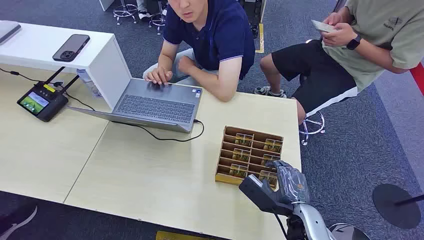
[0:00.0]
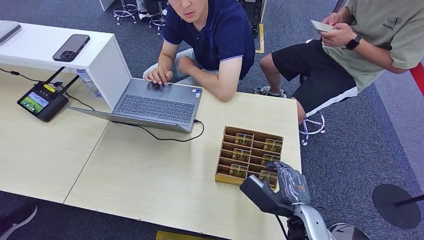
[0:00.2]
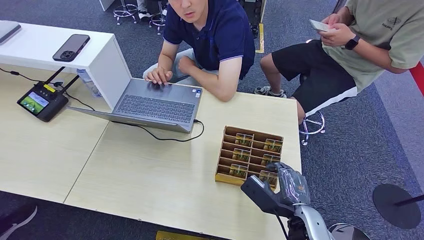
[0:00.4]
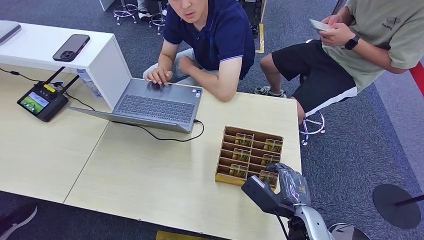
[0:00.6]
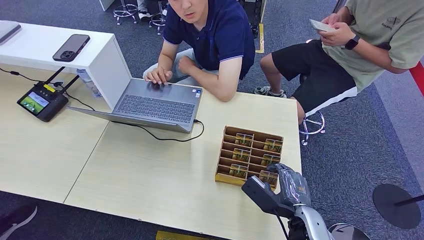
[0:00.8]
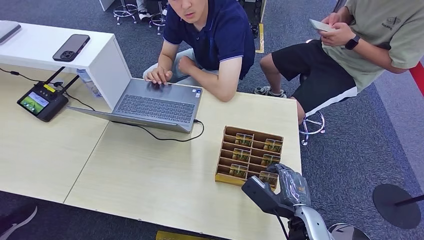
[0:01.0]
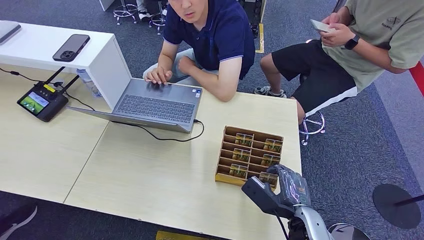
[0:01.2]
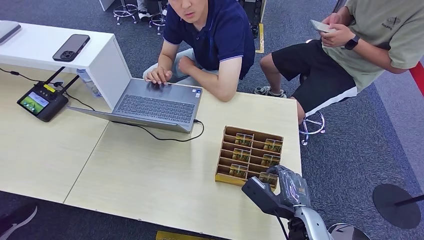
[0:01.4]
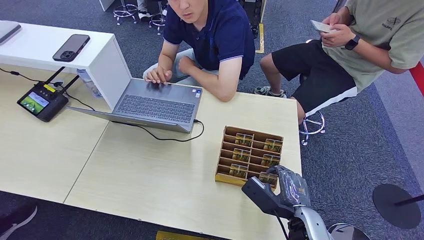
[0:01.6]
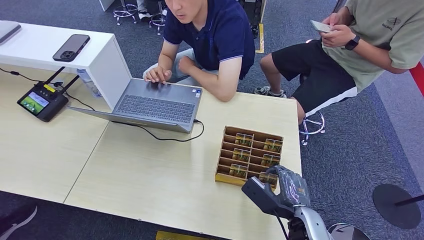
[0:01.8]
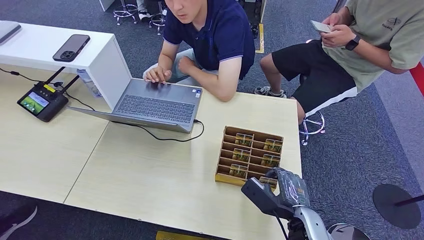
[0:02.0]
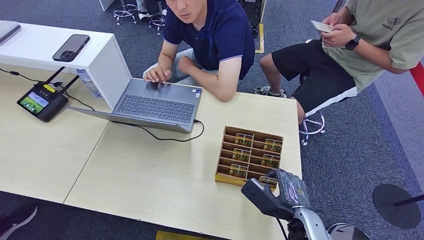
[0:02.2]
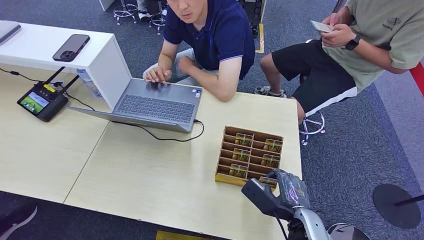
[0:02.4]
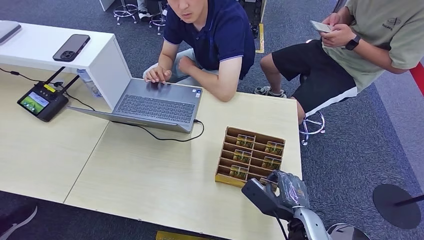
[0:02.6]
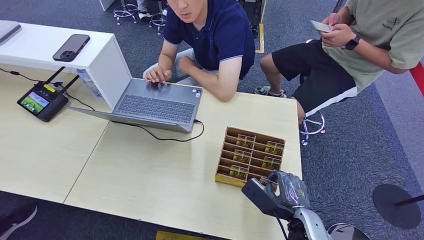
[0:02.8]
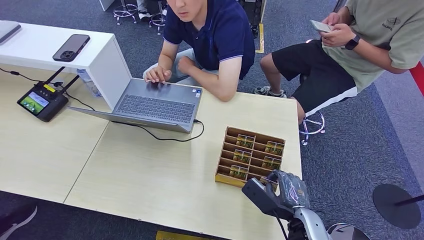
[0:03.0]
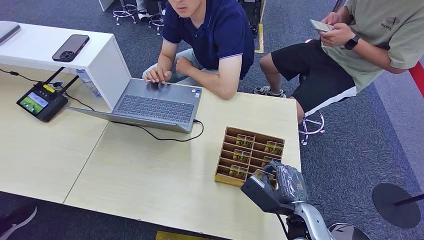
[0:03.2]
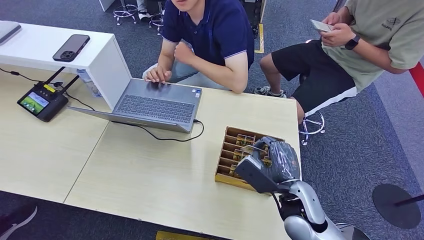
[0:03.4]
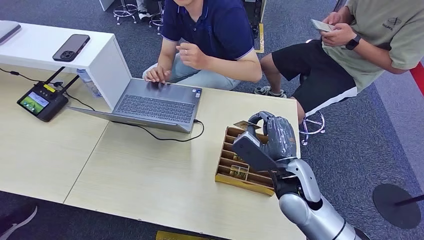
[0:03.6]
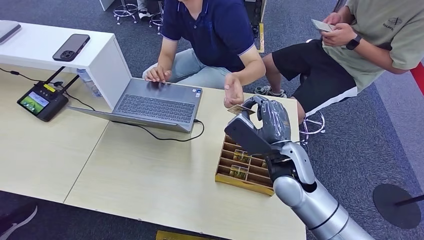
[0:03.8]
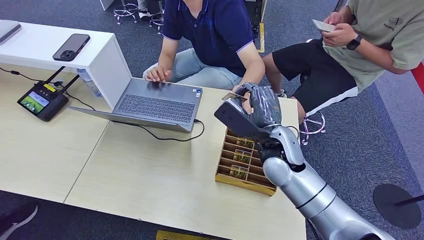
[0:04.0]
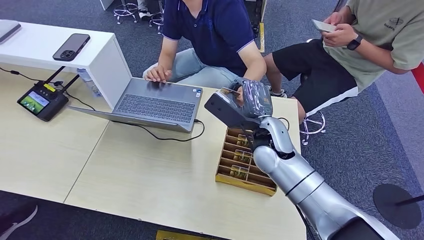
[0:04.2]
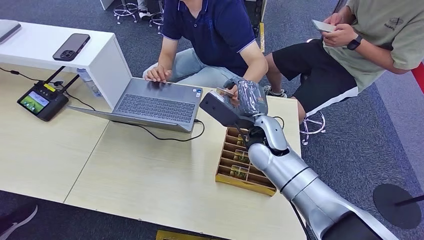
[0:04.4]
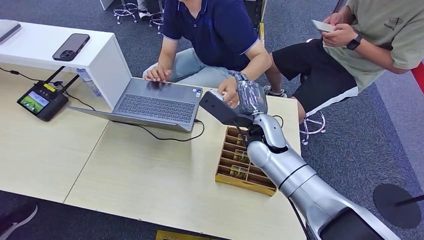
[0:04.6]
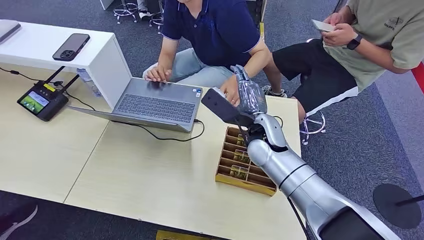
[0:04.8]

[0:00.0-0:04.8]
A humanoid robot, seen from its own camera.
Task of the whole recording: Pick up the card and hand it over to the target person.
Step, 0:02.2 to 0:04.6: Hand the key card to the target.
0:01.6 to 0:03.2: The right hand is displaced upward and forward by some 10 cm.
0:03.2 to 0:04.8: The right hand moves forward and upward, about 15 cm.
